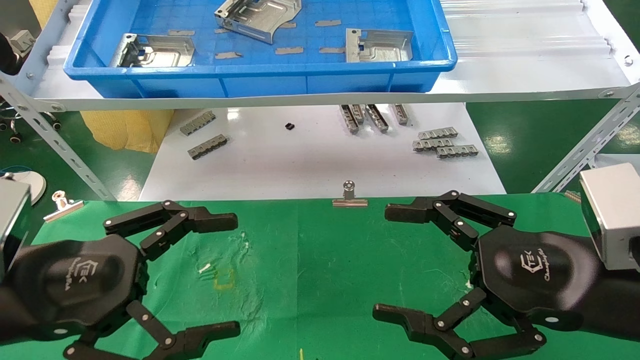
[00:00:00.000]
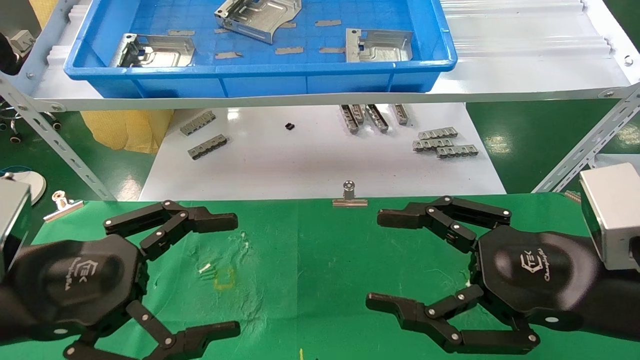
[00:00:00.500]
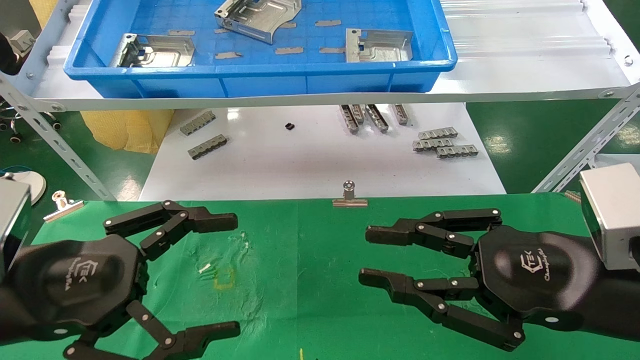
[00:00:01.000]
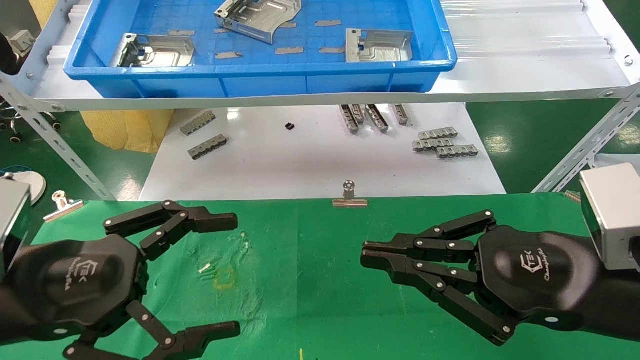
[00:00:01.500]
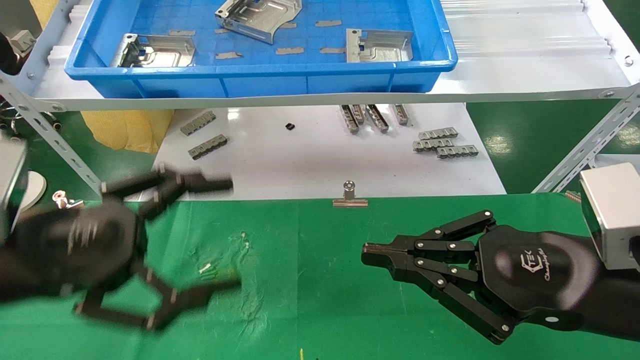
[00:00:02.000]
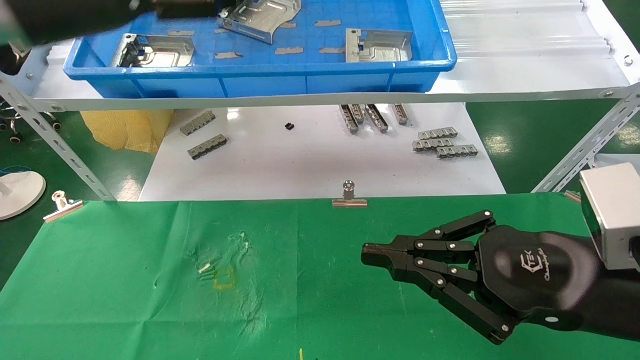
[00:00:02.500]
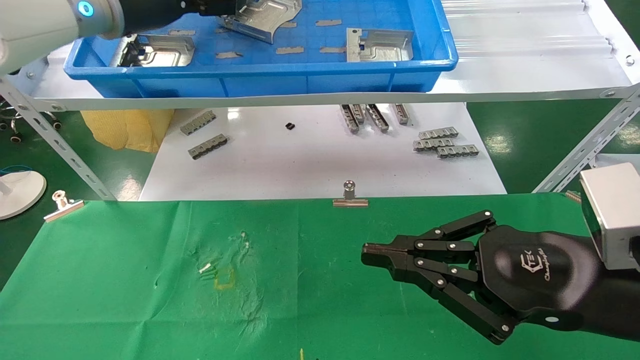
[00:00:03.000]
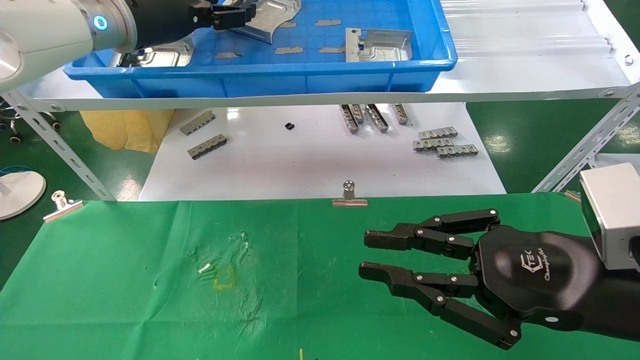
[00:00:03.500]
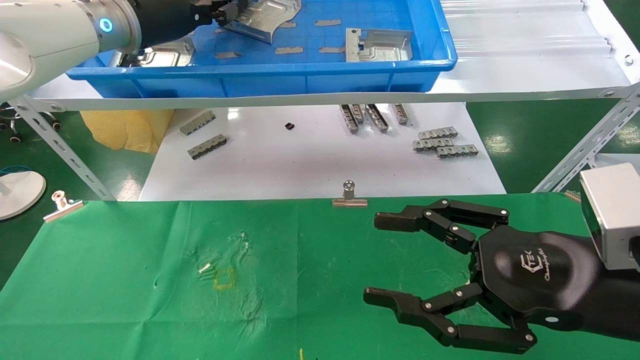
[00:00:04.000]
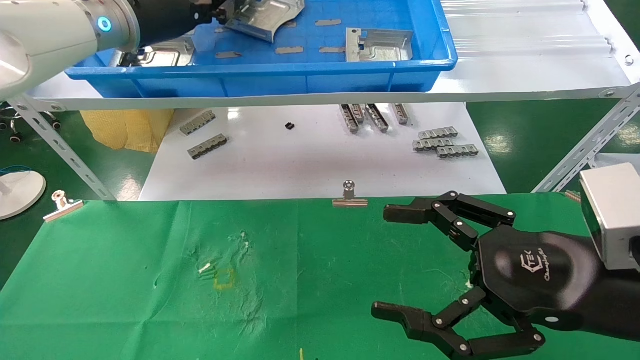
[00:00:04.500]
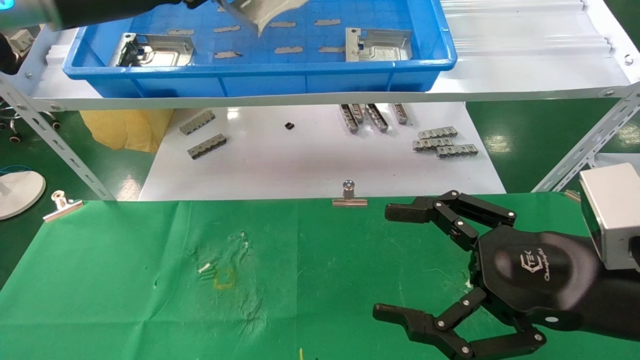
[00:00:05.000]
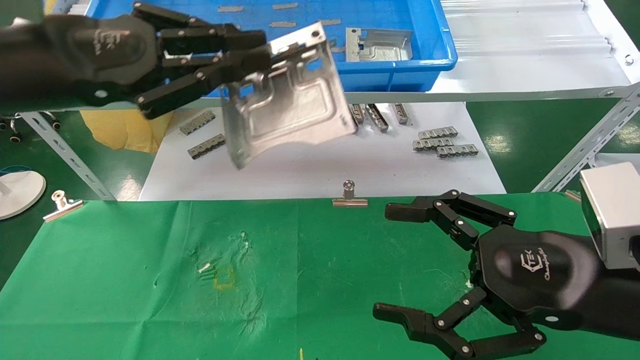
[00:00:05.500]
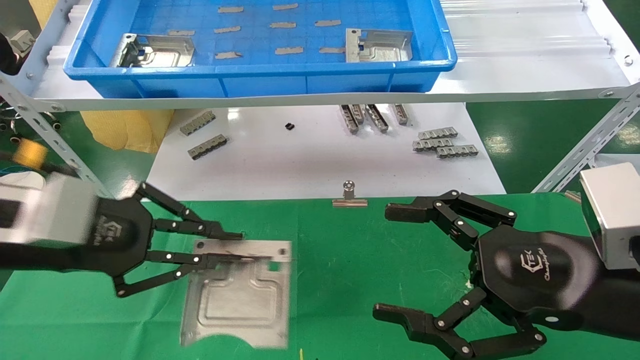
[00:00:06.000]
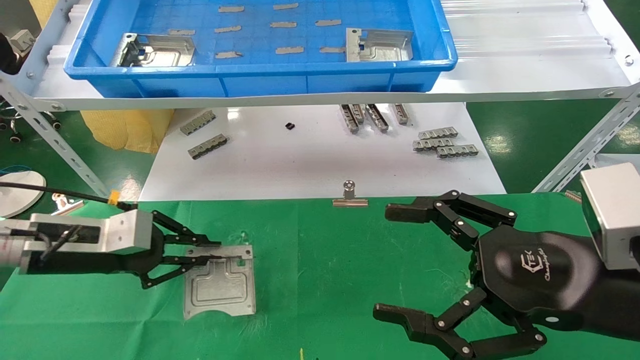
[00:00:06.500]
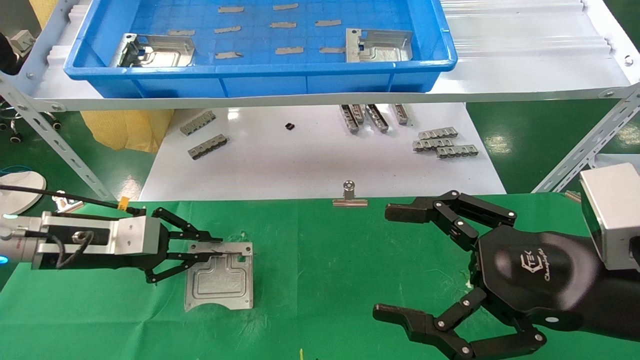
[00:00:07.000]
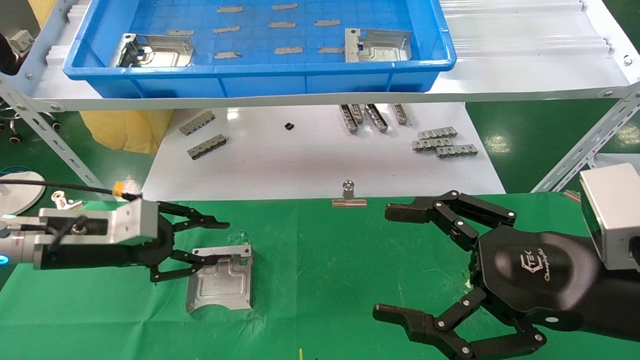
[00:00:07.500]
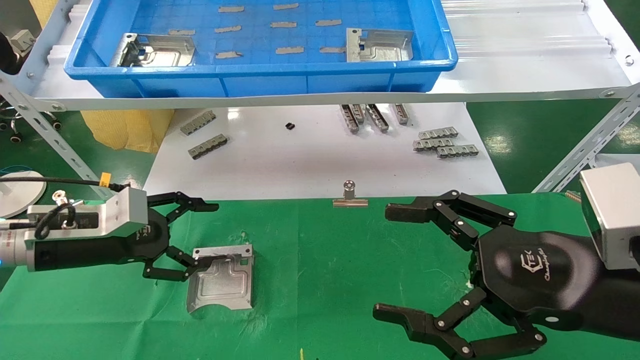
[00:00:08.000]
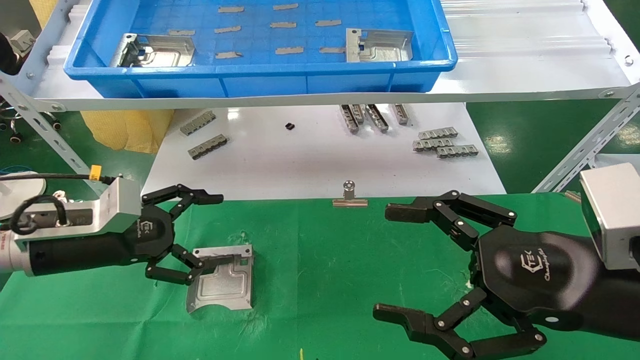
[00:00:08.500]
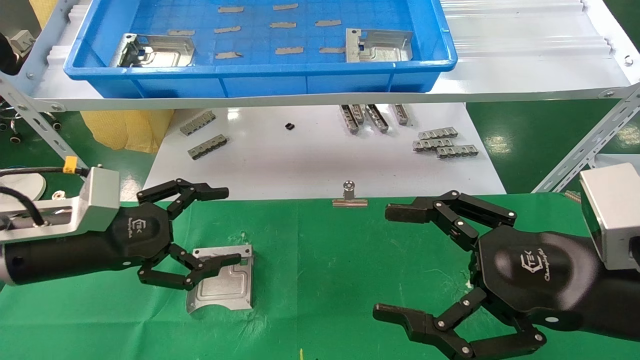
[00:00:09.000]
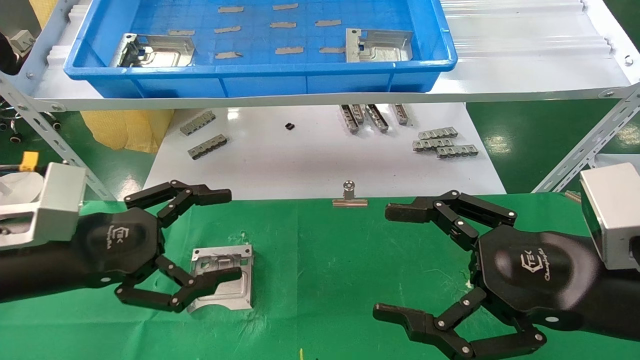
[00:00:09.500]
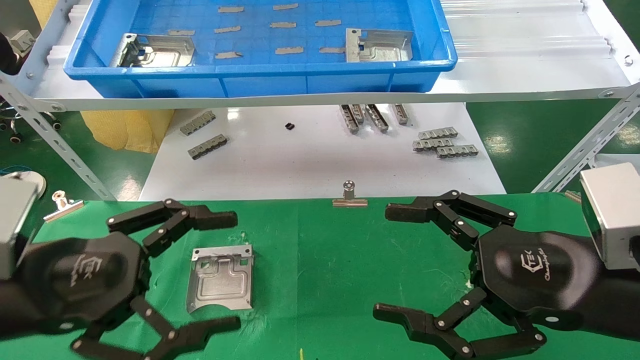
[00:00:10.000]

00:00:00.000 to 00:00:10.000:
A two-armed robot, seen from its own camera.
Task of the whole recording: use the mechanical arm to pick up the parts and place them on the table.
Step, 00:00:02.000 to 00:00:04.000: Pick up the hard drive bracket from the feeding area.
Step, 00:00:04.500 to 00:00:07.500: Place the hard drive bracket into the box.
00:00:00.000 to 00:00:02.000: The right gripper closes, while the left gripper moves upward, about 5 cm.
00:00:02.000 to 00:00:04.000: The right gripper opens. The left gripper travels forward and upward by approximately 30 cm, and closes.
00:00:04.000 to 00:00:06.000: The left gripper shifts some 25 cm downward, backward and to the left, while the right gripper opens its fingers.
00:00:06.000 to 00:00:08.000: The left gripper is displaced downward and forward by roughly 10 cm, and opens.
00:00:08.000 to 00:00:10.000: The left gripper goes approximately 15 cm backward.

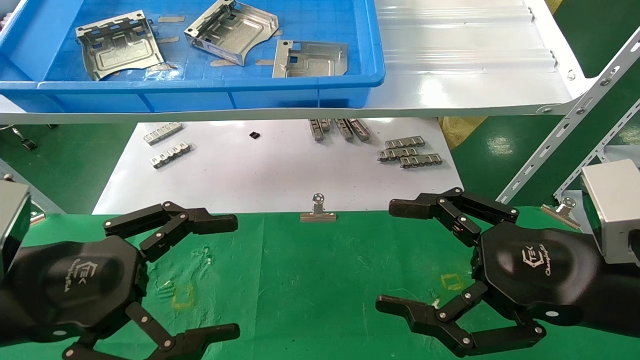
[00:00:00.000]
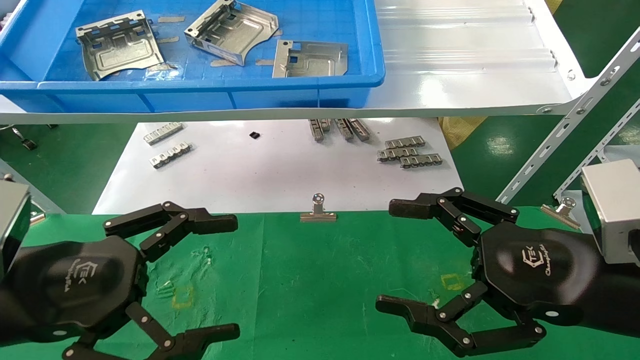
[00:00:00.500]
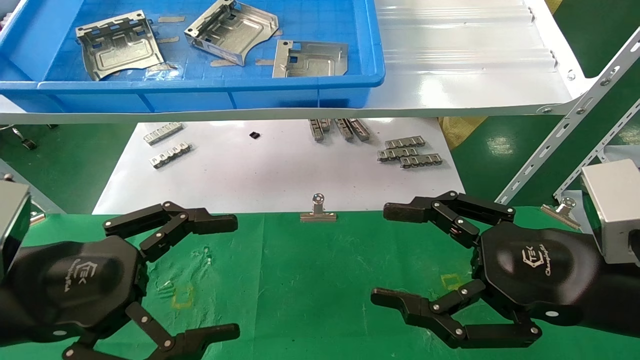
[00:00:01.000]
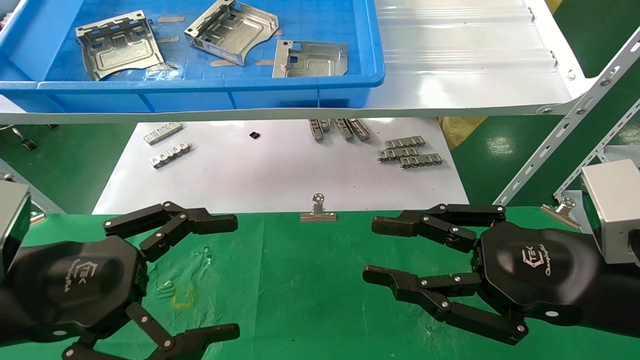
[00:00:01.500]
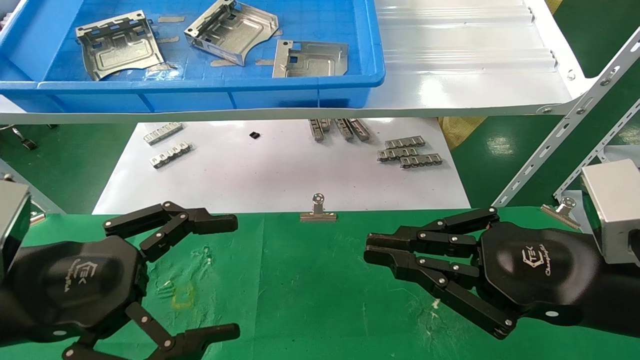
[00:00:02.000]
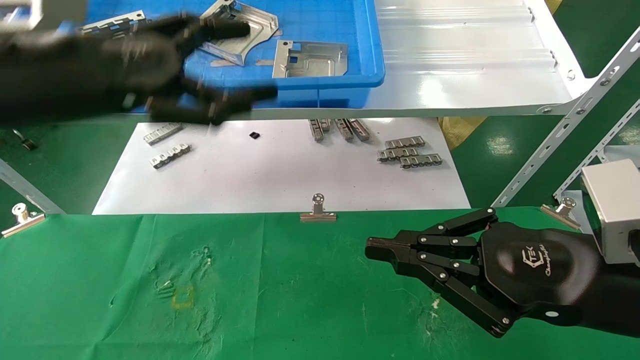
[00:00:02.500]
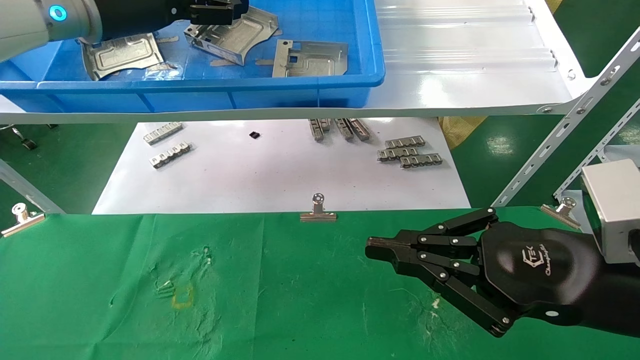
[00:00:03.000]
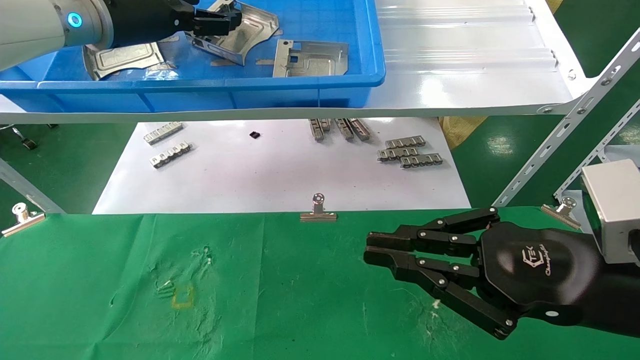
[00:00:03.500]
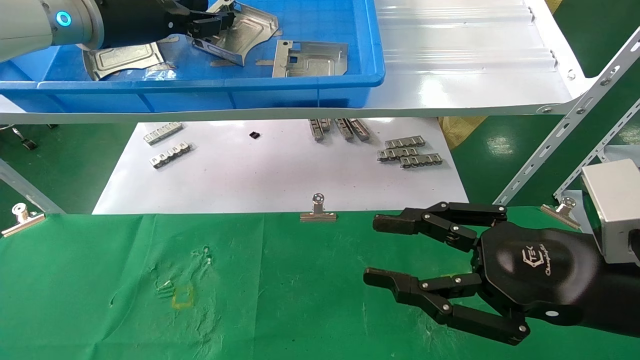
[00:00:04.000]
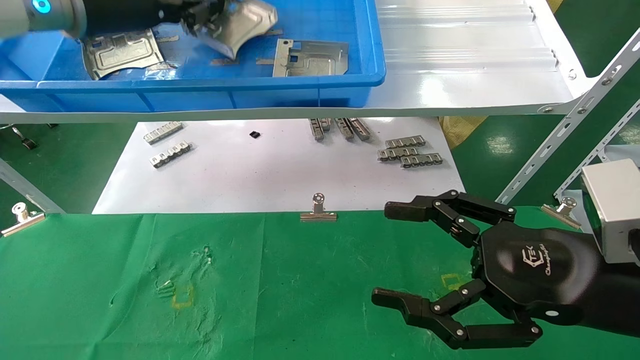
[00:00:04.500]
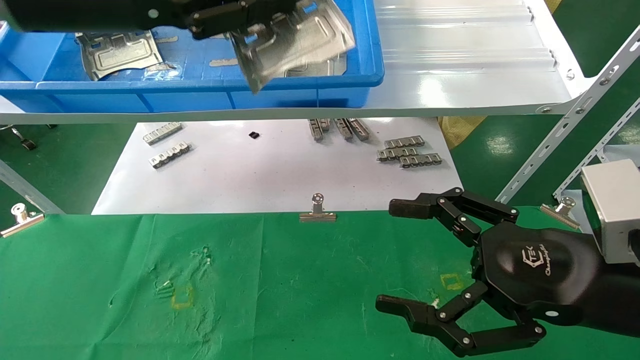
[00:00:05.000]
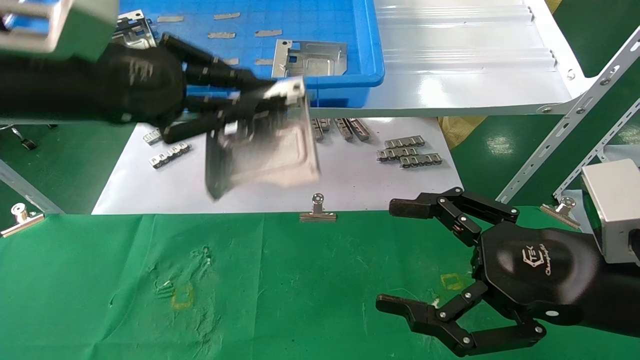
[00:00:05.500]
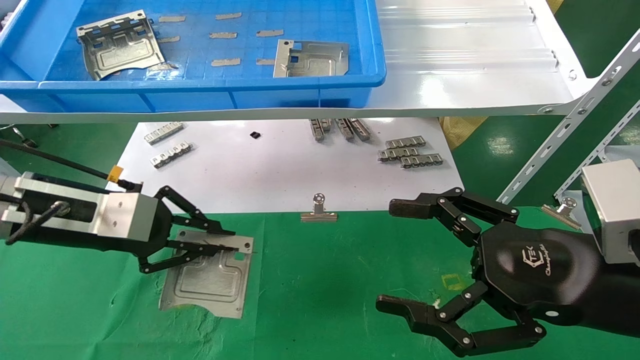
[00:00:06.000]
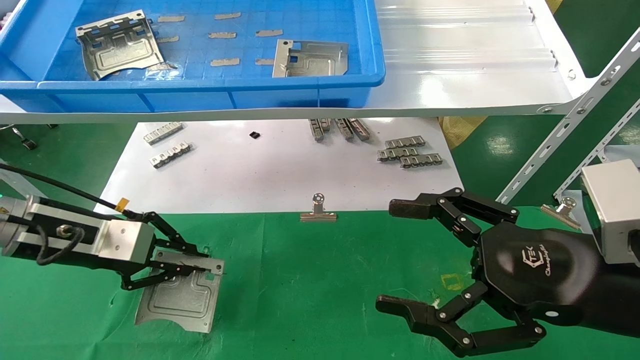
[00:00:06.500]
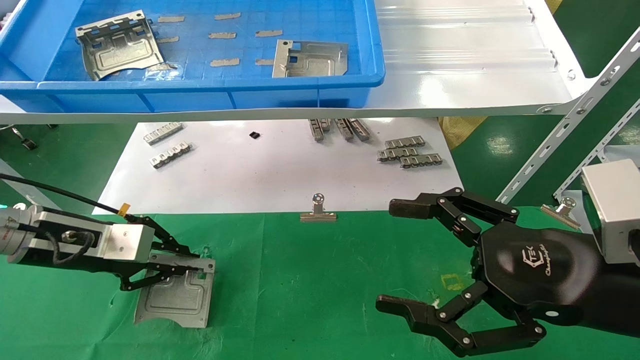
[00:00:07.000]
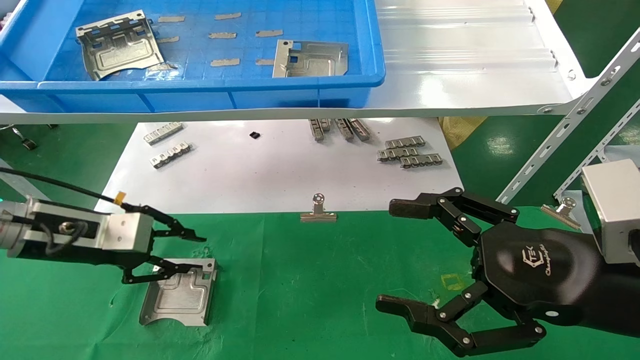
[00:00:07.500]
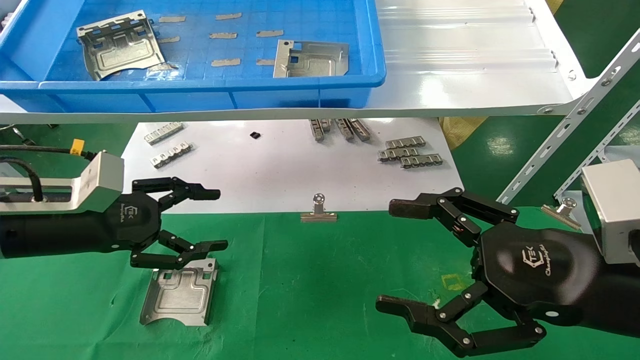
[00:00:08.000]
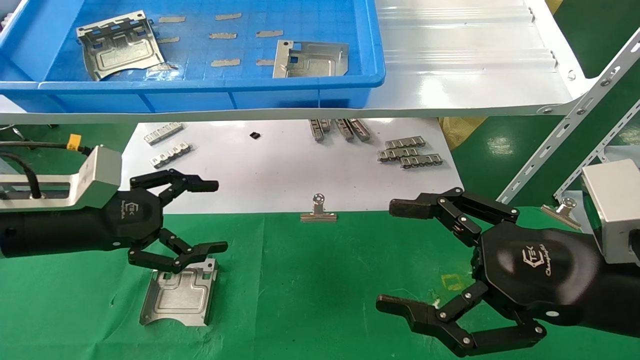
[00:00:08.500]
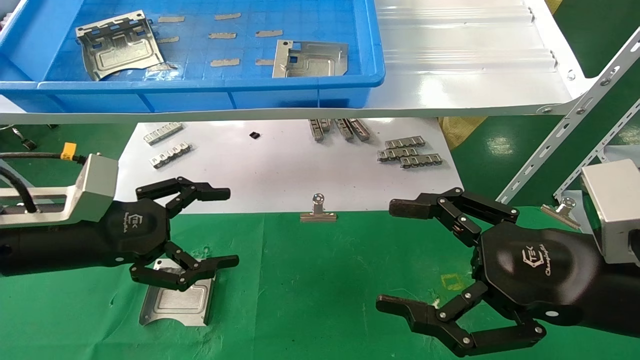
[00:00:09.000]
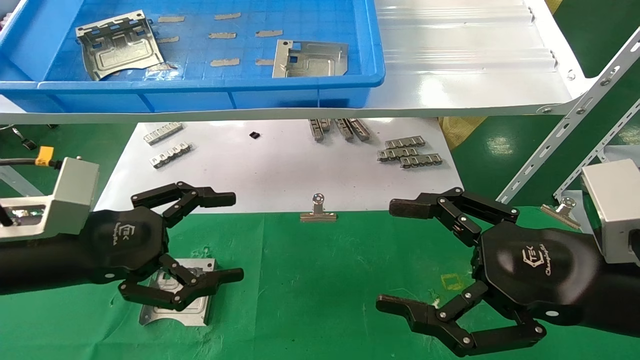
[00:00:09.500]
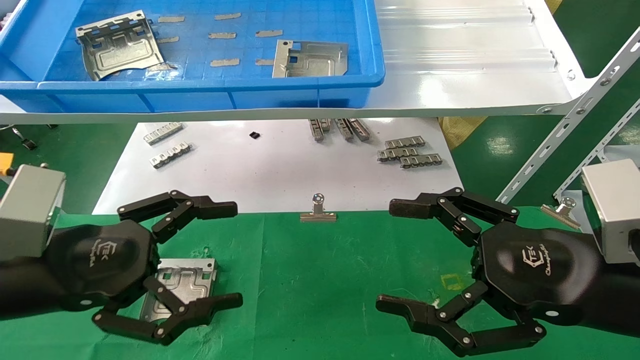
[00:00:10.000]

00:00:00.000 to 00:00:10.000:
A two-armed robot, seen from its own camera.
Task of the whole recording: use the mechanical arm to pick up the parts and place them on the table.
Step, 00:00:02.500 to 00:00:04.000: Pick up the hard drive bracket from the feeding area.
Step, 00:00:04.500 to 00:00:07.500: Place the hard drive bracket into the box.
00:00:00.000 to 00:00:02.000: The right gripper closes up.
00:00:02.000 to 00:00:04.000: The left gripper heads forward and upward, covering some 30 cm, and closes.
00:00:04.000 to 00:00:06.000: The right gripper opens its fingers. The left gripper shifts roughly 20 cm downward and backward, and closes.
00:00:06.000 to 00:00:08.000: The left gripper opens up.
00:00:08.000 to 00:00:10.000: The left gripper heads backward, covering roughly 10 cm, and opens up.
